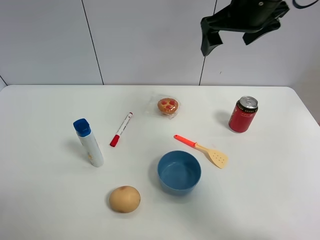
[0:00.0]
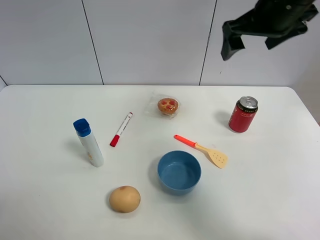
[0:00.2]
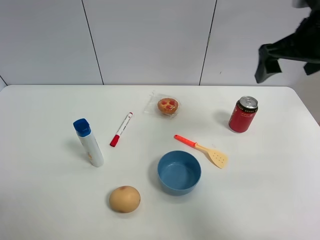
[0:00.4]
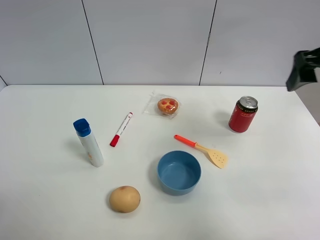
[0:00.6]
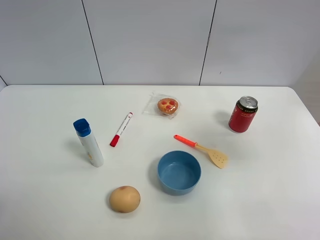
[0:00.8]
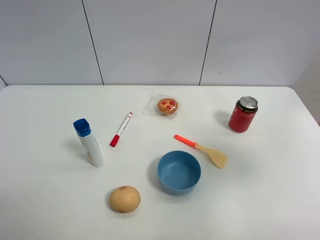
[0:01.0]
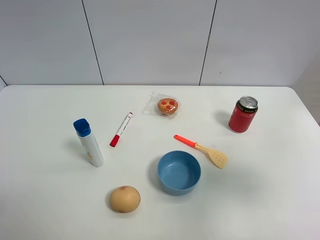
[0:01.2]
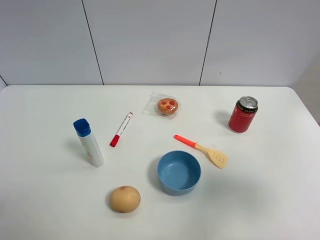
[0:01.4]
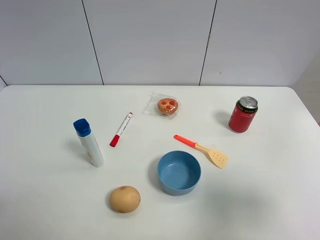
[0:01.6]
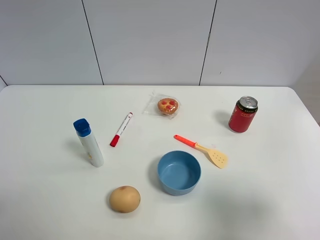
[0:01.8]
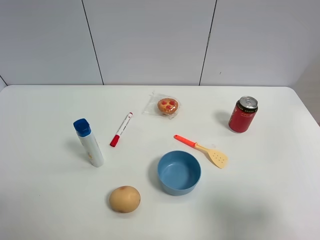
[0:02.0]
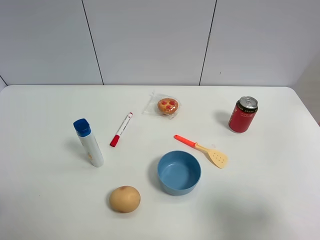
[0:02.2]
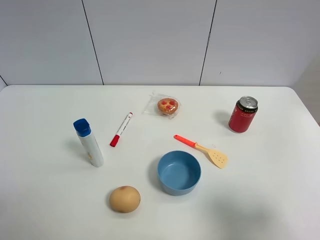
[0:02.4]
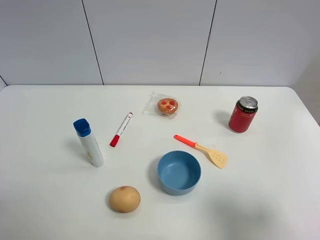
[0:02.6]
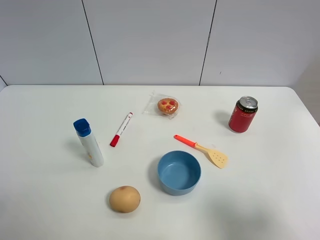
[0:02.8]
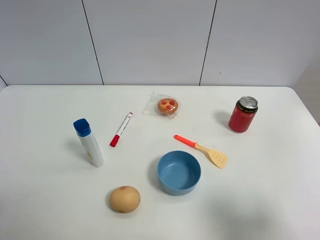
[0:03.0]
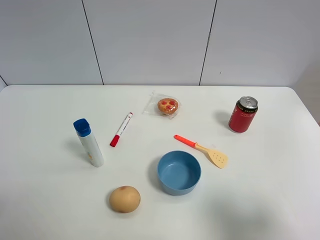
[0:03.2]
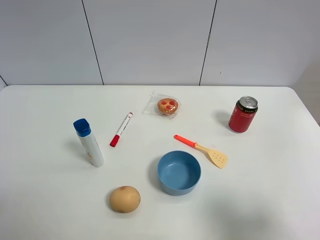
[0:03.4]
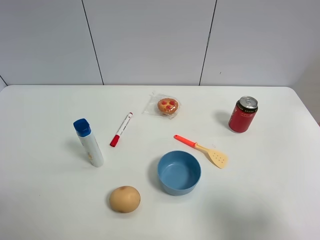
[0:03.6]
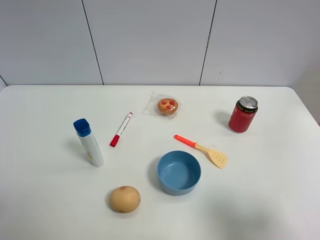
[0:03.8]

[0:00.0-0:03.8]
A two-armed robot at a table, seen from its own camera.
Task of the whole recording: the gripper move the object.
0.0 to 1.2 s: The right gripper is displaced backward and to the right by approximately 30 cm.
1.2 to 2.6 s: The right gripper shifts some 10 cm backward and downward.
2.6 to 3.8 s: The two grippers keep their place.

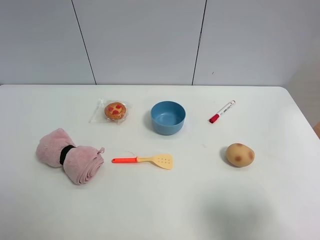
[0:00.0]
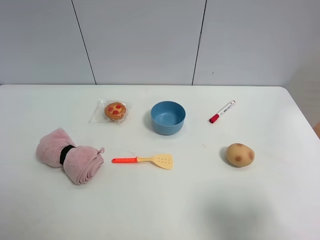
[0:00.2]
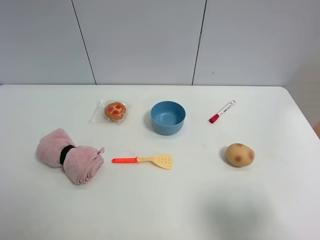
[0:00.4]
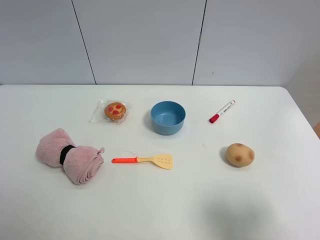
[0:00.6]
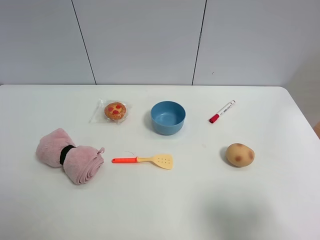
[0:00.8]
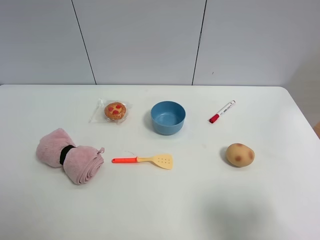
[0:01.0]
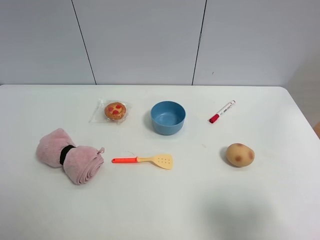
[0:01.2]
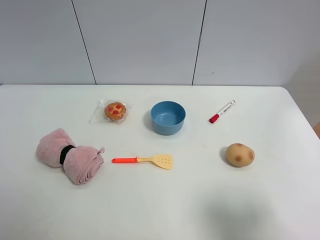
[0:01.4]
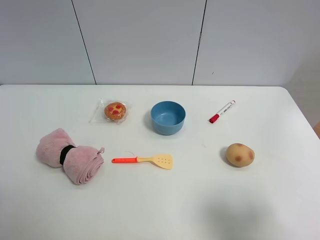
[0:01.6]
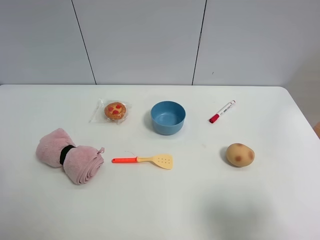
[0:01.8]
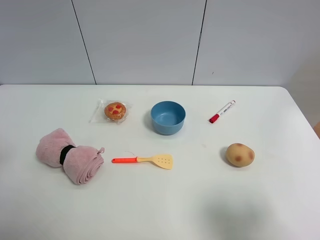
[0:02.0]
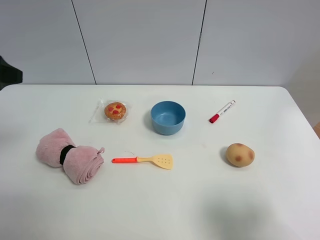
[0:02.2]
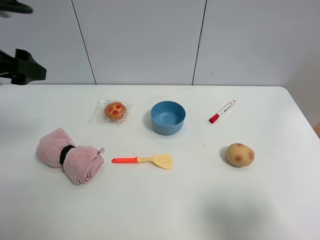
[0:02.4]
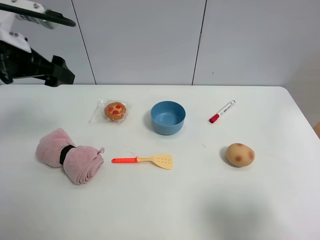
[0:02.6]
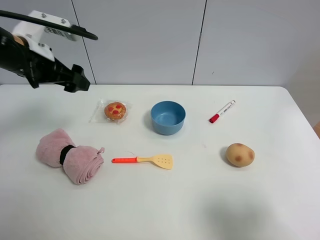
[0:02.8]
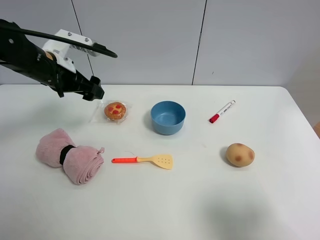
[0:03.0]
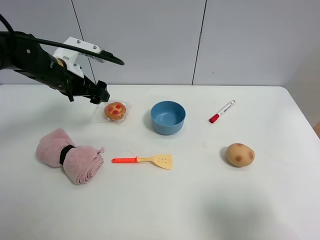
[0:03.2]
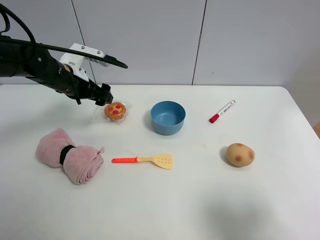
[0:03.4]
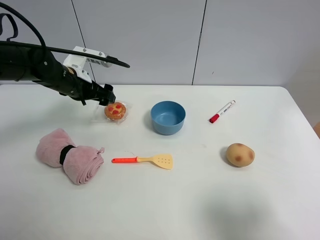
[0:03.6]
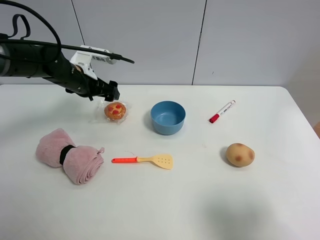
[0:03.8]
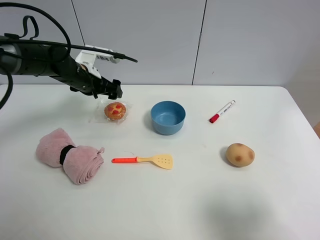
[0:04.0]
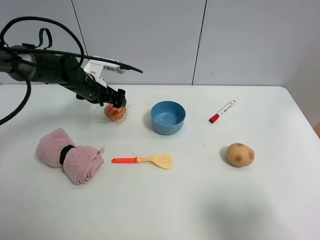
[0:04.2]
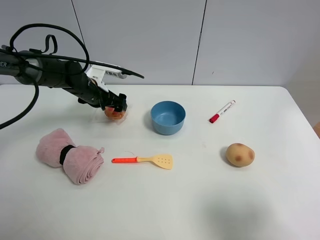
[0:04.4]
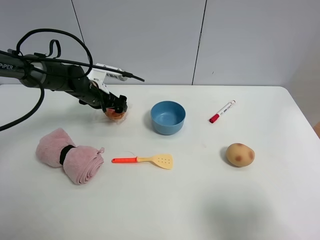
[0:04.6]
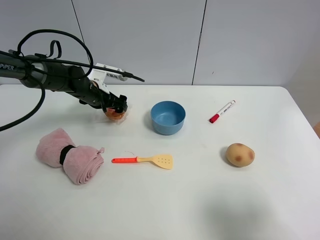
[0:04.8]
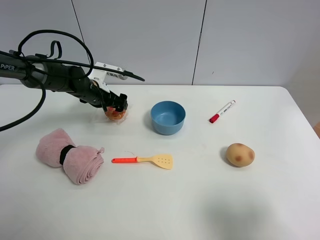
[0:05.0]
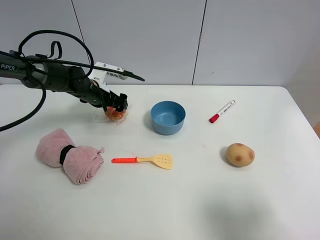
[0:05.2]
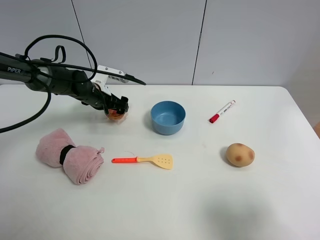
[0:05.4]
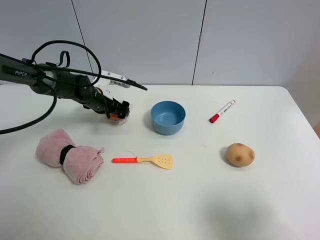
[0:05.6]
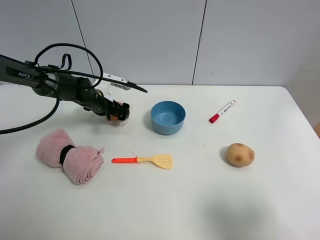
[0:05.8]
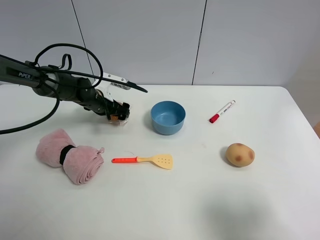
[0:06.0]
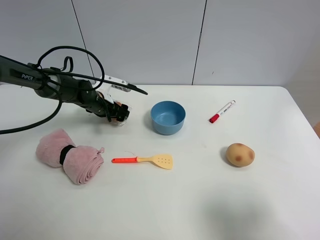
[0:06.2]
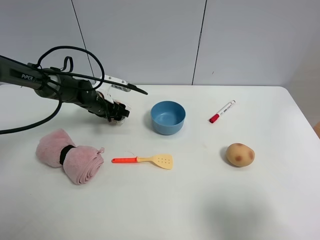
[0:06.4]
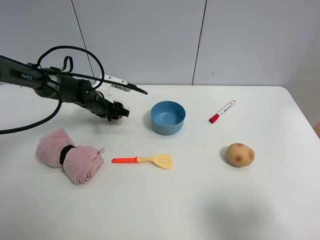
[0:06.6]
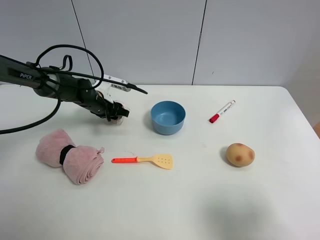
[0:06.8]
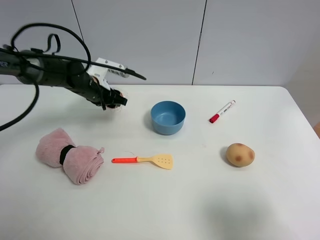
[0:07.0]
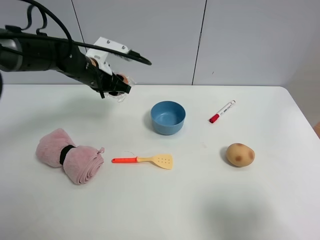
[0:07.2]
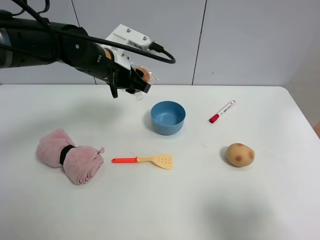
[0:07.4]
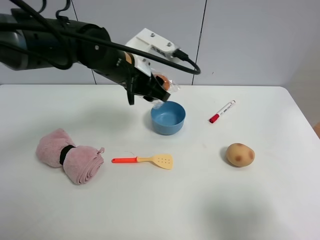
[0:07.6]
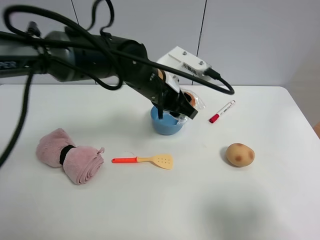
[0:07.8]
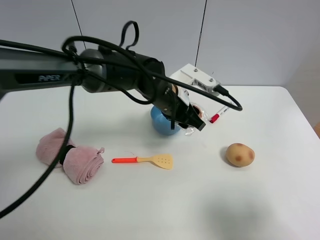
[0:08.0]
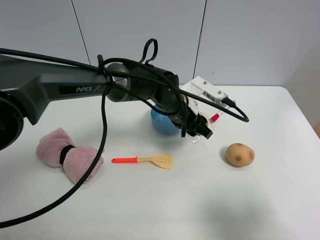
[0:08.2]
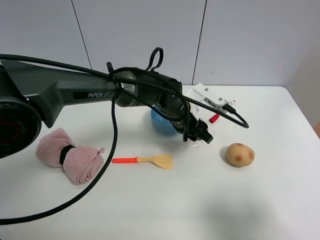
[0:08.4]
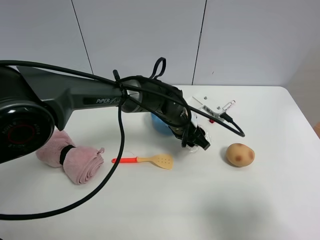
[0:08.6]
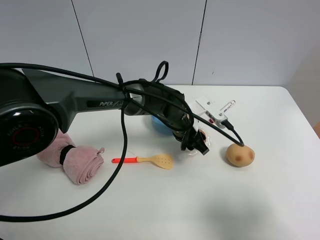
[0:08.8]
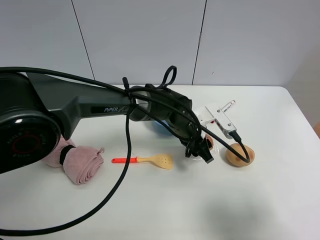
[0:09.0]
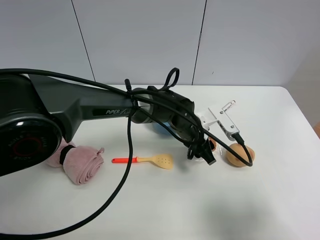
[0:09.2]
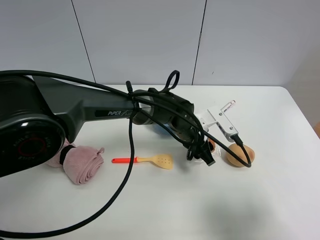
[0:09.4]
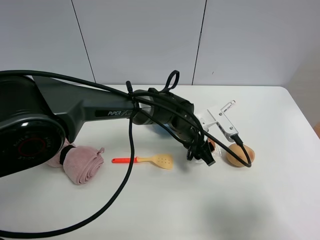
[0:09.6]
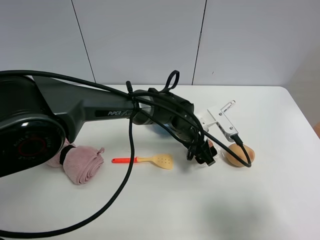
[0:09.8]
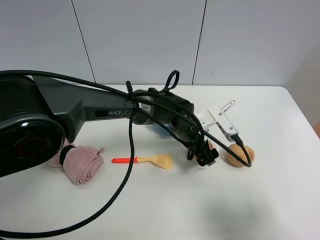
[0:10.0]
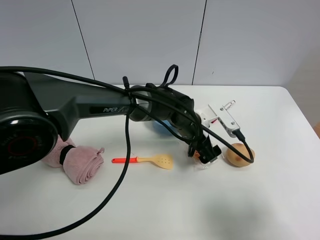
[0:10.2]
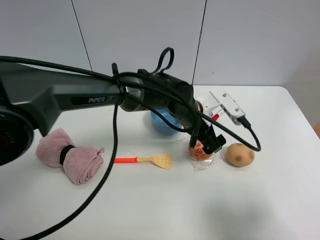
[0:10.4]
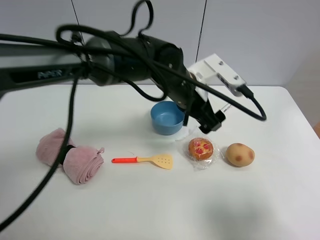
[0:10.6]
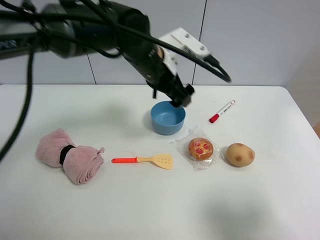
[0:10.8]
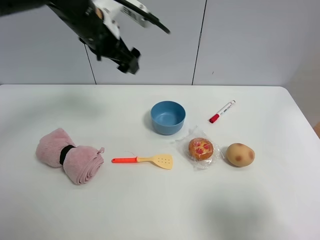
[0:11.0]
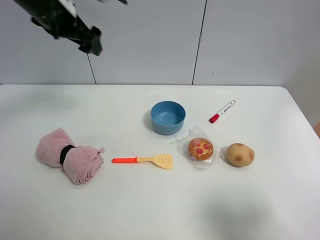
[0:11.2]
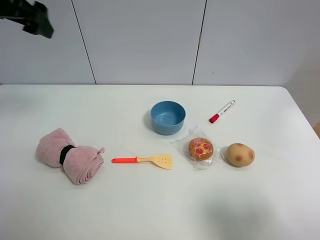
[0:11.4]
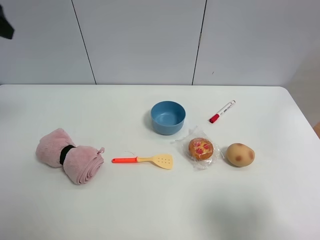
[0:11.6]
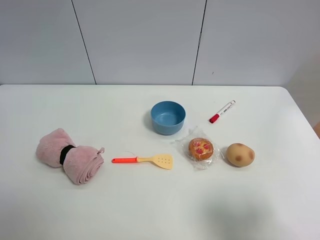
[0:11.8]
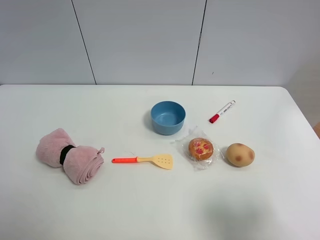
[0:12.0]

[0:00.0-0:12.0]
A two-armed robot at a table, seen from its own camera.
Task of the whole recording: the gripper move the object.
Step, 0.0 to 6.6 s: Grasp the egg tart with the left gripper.
Step, 6.8 to 10.0 s: Place the egg tart on the table with the left gripper.
1.6 to 3.0 s: The left gripper shifts some 30 cm forward.
3.0 to 4.4 s: The left gripper travels downward and forward by about 15 cm.
4.4 to 6.0 s: The grippers move only a little.
6.0 to 7.6 s: The left gripper is displaced upward, to the right and backward by about 25 cm, and closes.
7.6 to 9.0 s: The left gripper shifts some 20 cm downward and to the right.
9.0 to 10.4 s: The left gripper goes roughly 5 cm upward, and opens up.
10.4 to 12.0 s: The left gripper goes roughly 50 cm to the left, upward and backward.

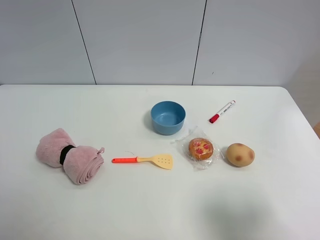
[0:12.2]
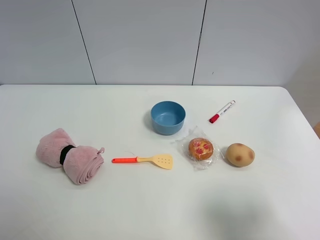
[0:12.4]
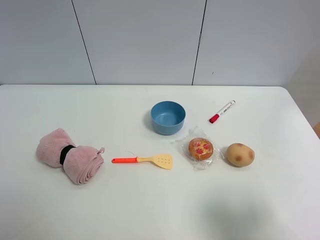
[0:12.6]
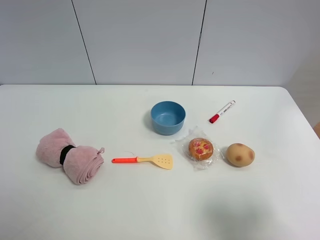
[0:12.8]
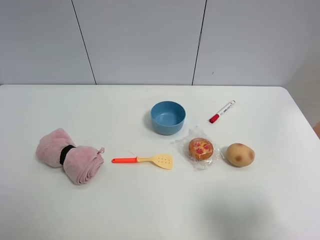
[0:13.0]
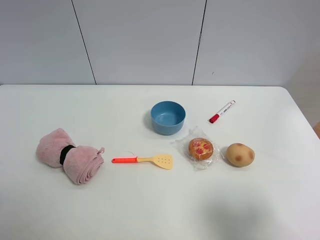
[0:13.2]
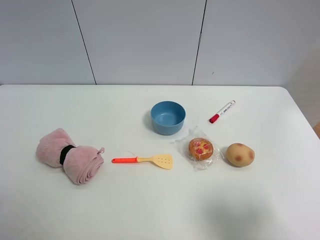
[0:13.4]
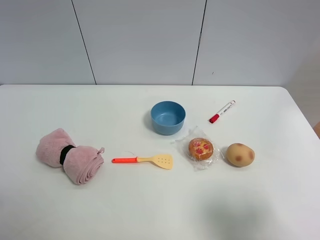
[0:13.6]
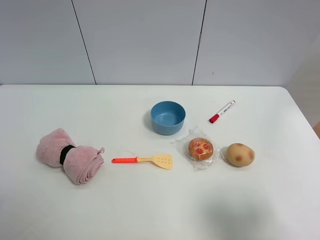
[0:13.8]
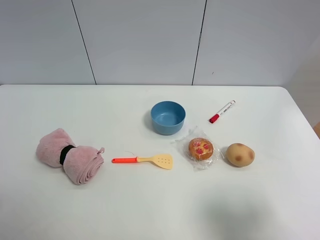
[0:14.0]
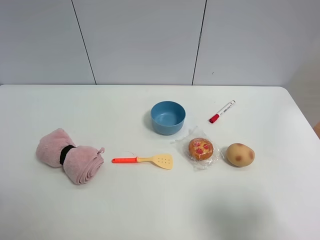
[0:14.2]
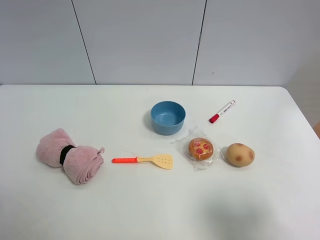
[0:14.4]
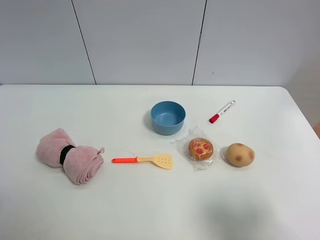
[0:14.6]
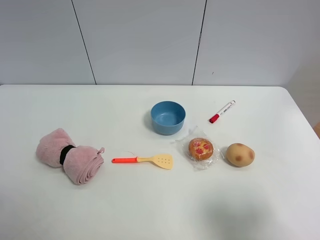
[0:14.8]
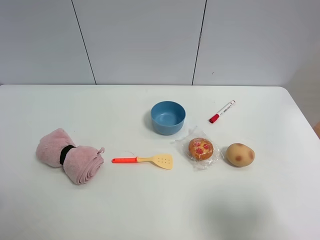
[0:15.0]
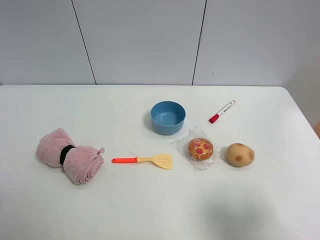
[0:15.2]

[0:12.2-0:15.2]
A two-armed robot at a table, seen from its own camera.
Task of the whole recording: the gripper move the object.
13.8 to 15.2 s: Both grippers stay put.

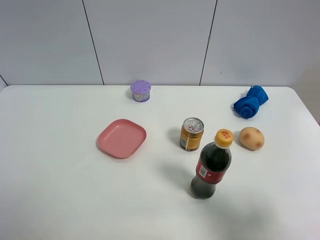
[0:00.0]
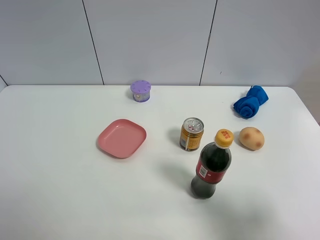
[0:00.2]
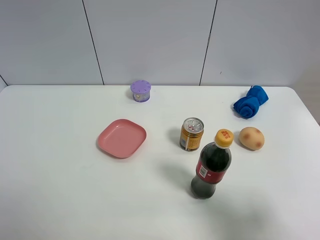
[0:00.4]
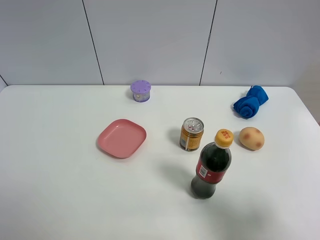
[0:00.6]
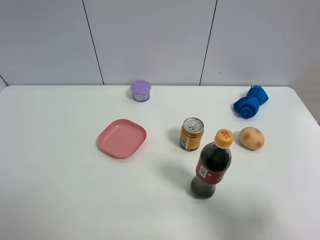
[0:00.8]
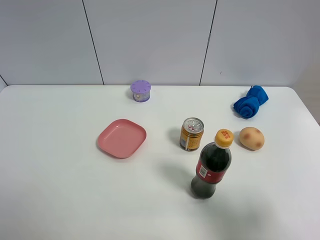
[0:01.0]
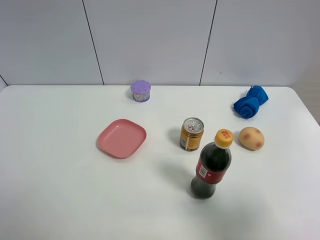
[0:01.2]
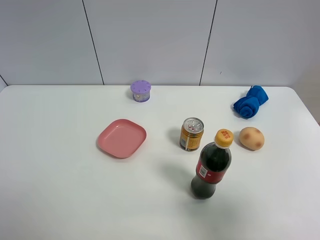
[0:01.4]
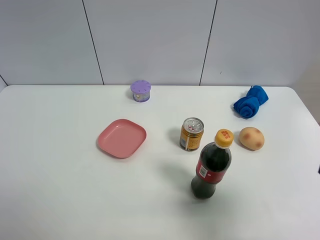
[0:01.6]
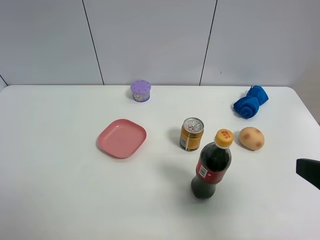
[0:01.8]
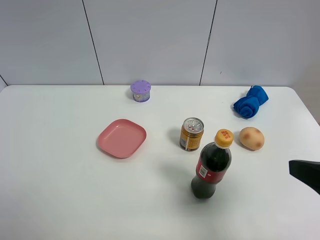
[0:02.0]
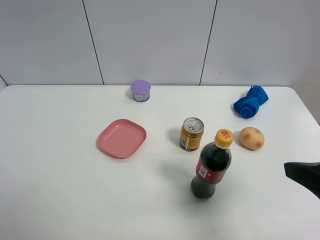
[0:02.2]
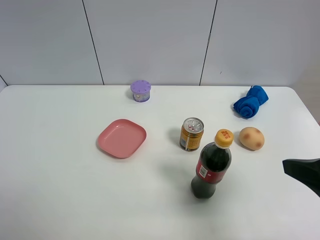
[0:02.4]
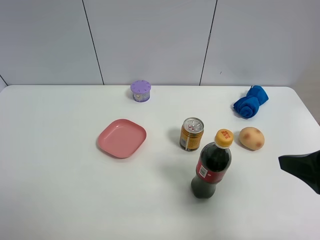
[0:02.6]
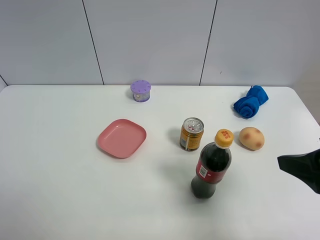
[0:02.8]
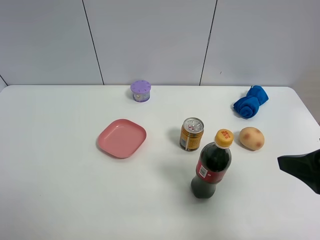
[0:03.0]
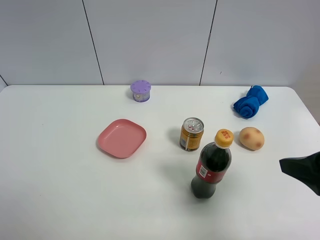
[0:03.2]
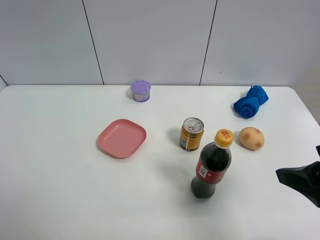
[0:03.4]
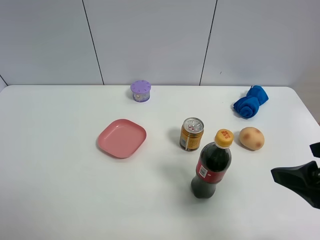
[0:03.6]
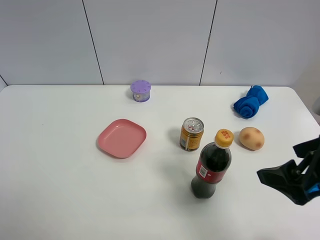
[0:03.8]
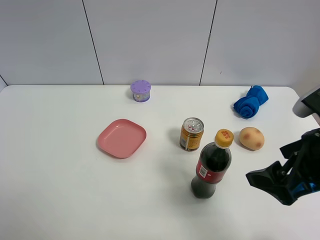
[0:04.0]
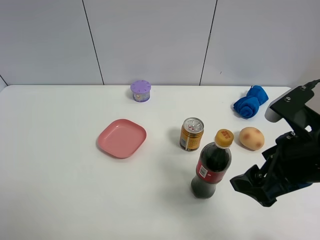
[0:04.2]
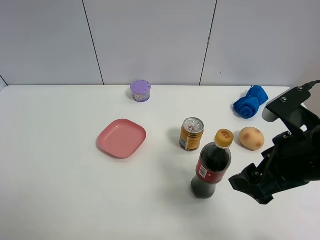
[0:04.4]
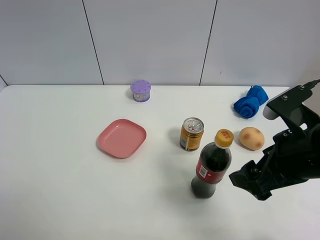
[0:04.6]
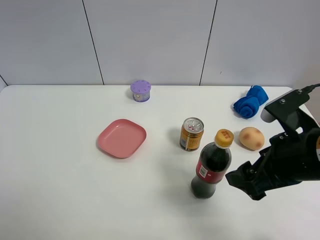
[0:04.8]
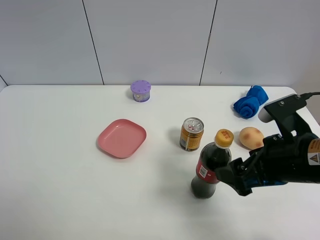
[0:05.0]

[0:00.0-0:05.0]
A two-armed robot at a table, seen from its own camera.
Task of the whole recording: the gripper move the object.
0.0 to 1.6 s: The right gripper moves about 5 cm.
1.6 to 3.4 s: The right gripper goes approximately 5 cm forward.
3.4 to 5.0 s: The right gripper travels to the left and downward by some 10 cm.
